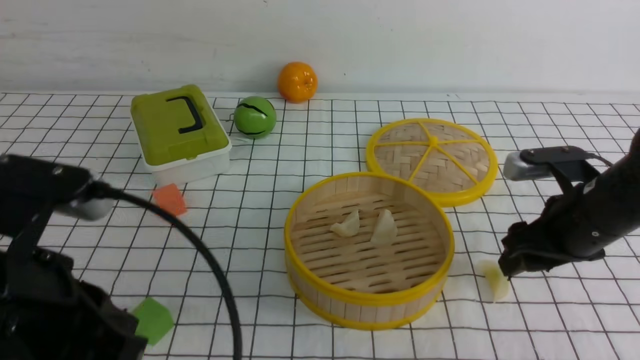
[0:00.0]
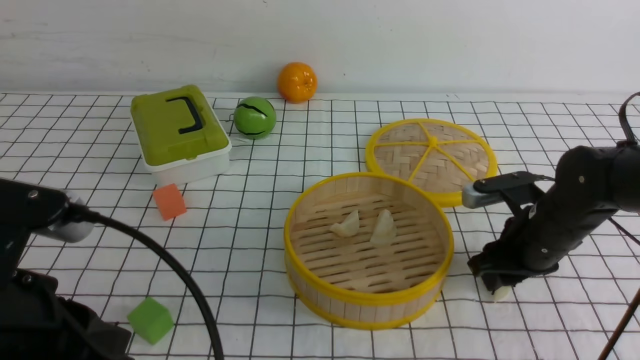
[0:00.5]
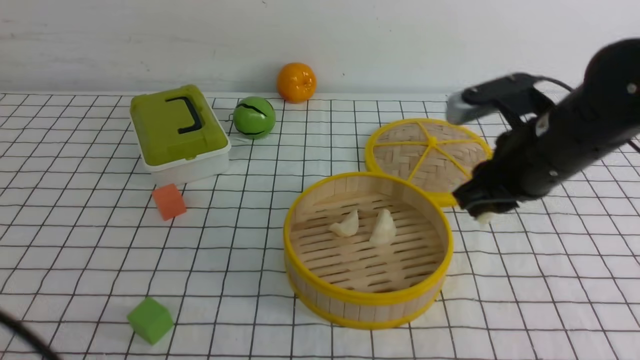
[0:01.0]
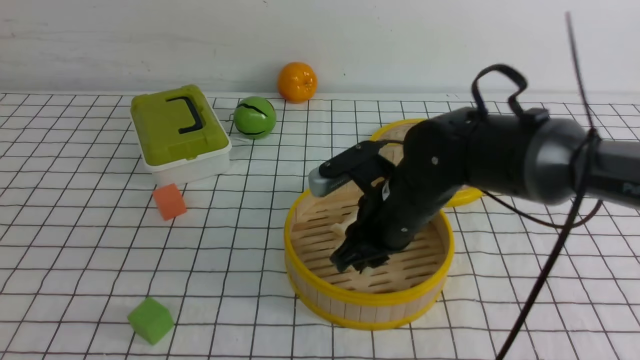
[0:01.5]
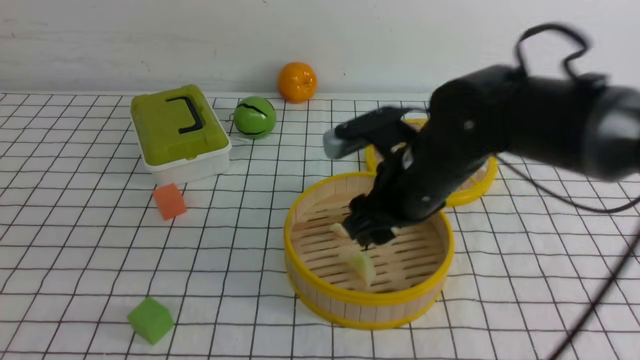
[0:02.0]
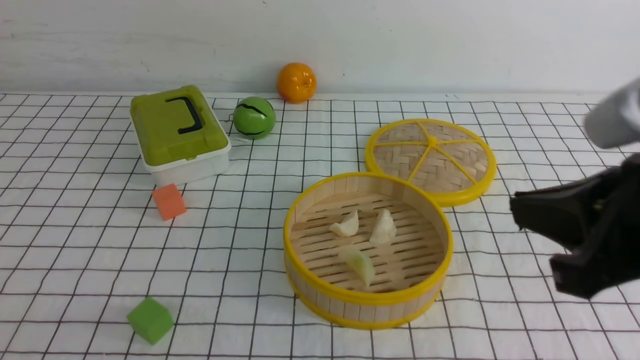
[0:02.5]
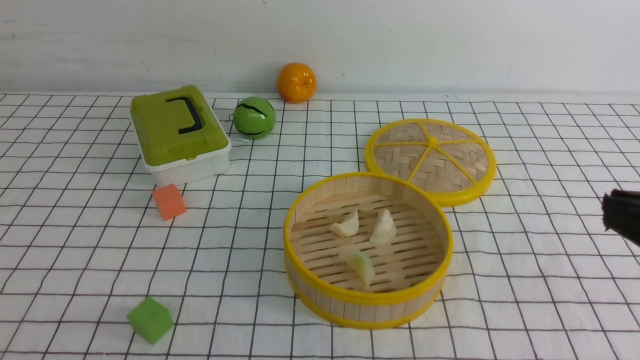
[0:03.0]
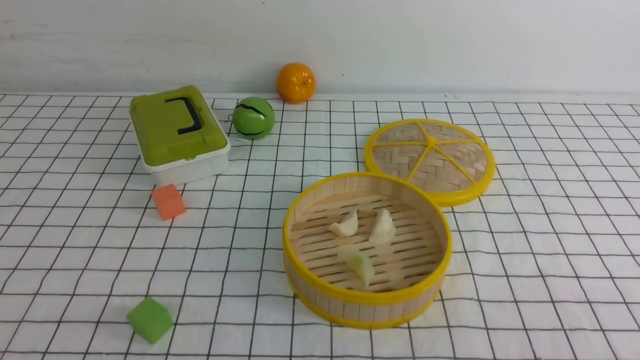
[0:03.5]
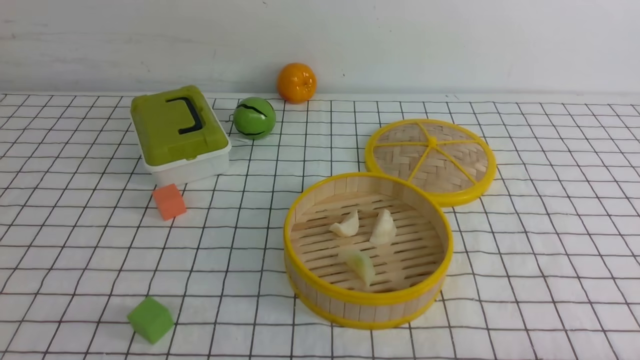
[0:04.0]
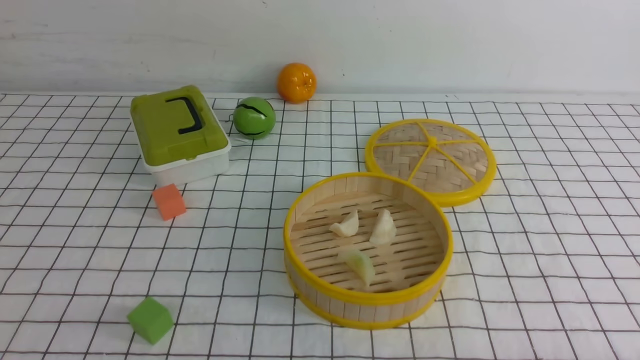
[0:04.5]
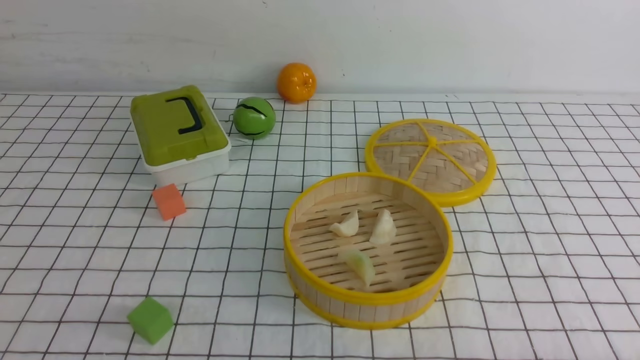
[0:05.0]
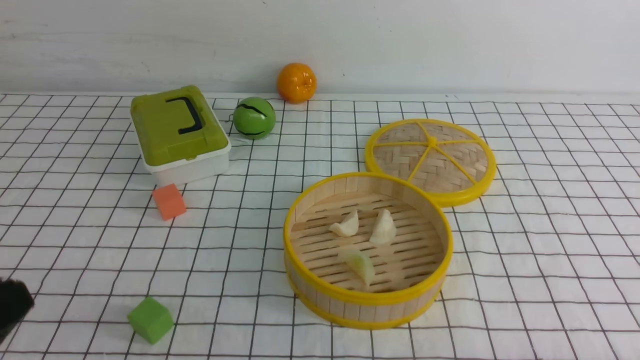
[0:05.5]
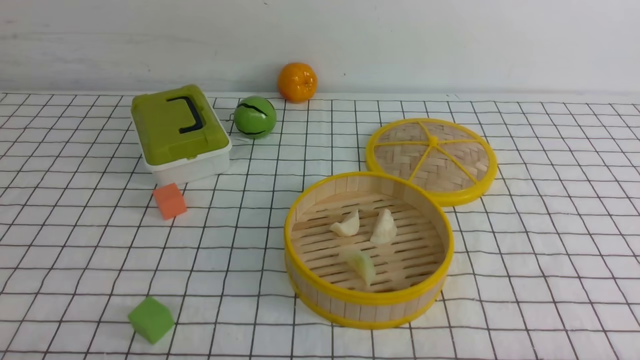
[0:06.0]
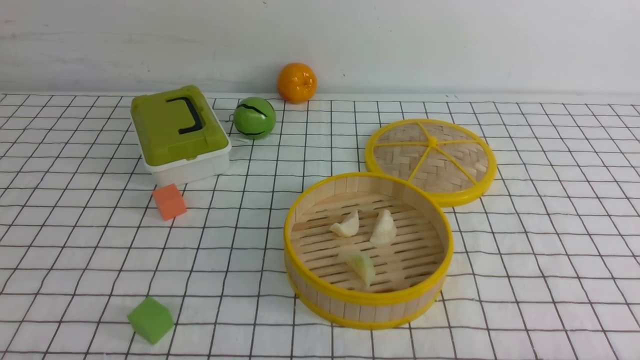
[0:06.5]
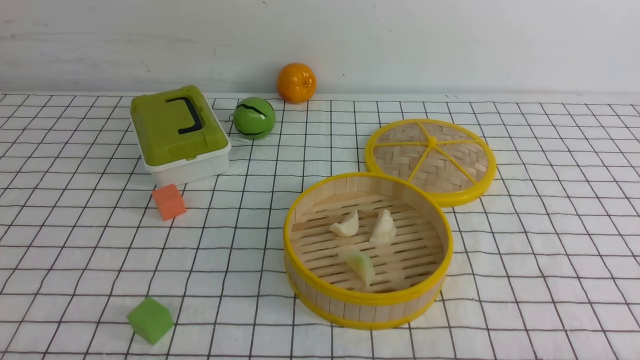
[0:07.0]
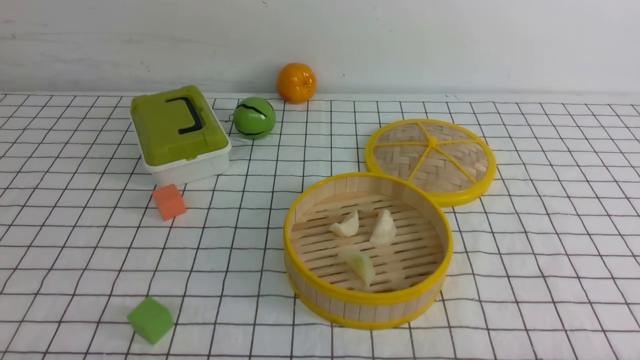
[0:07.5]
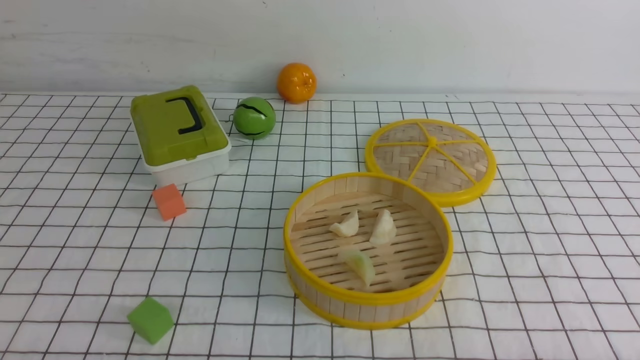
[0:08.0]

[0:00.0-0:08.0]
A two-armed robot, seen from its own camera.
Task of the whole recording: put the dumplings into the steamer on the table with the white tablecloth.
Step, 0:01.0 to 0:02.5: use the right arm to put the dumpling into the steamer.
0:00.0 to 0:02.0: The left gripper moves backward and to the left, roughly 15 cm; the right gripper goes some 15 cm to the left, and closes, then reopens.
0:02.0 to 0:04.0: The right gripper moves backward and to the right, some 35 cm, and closes its fingers.
